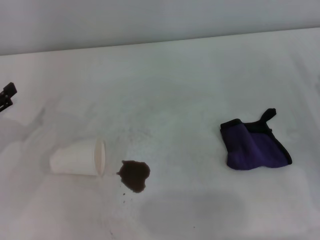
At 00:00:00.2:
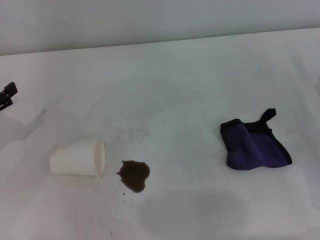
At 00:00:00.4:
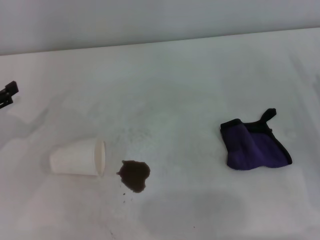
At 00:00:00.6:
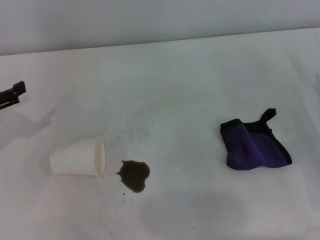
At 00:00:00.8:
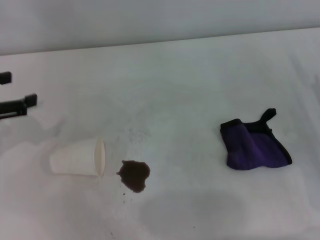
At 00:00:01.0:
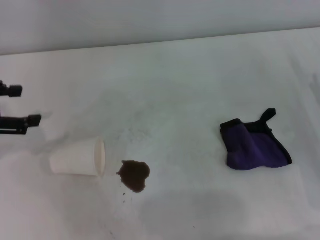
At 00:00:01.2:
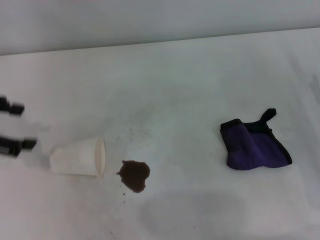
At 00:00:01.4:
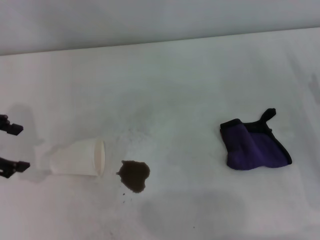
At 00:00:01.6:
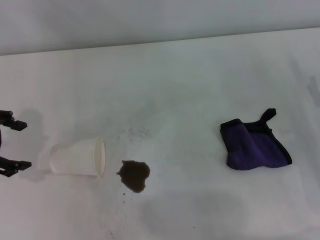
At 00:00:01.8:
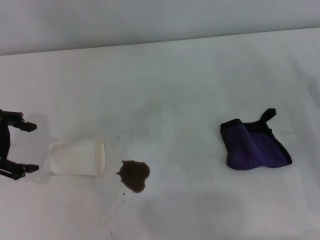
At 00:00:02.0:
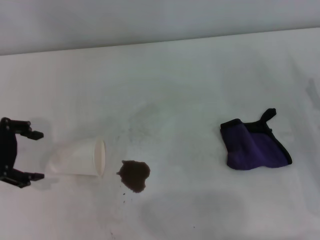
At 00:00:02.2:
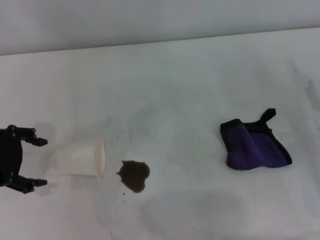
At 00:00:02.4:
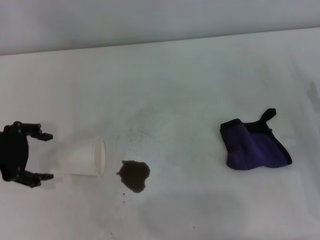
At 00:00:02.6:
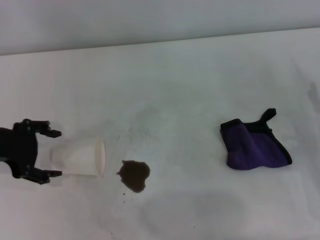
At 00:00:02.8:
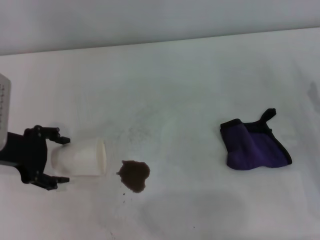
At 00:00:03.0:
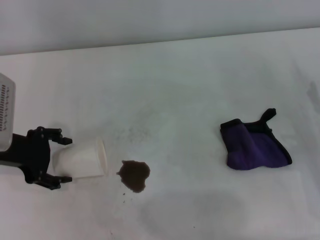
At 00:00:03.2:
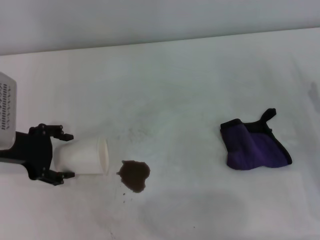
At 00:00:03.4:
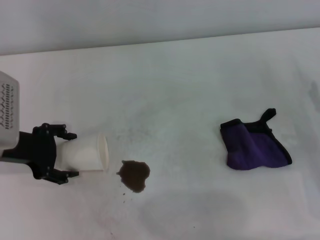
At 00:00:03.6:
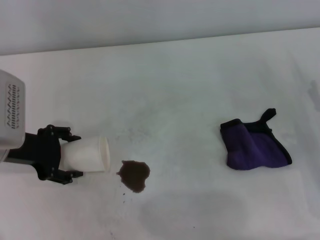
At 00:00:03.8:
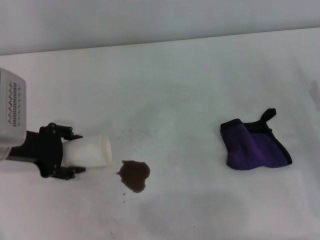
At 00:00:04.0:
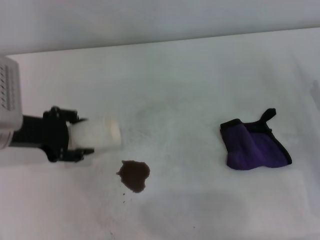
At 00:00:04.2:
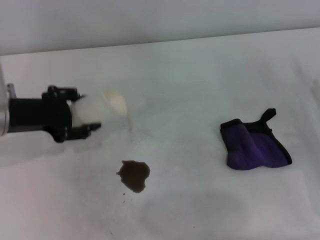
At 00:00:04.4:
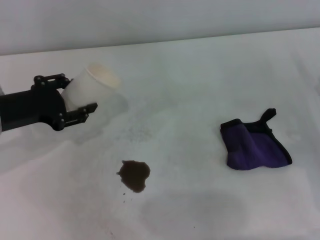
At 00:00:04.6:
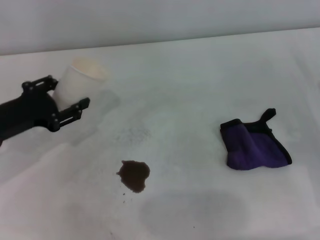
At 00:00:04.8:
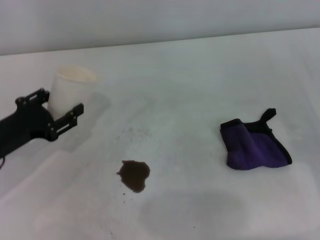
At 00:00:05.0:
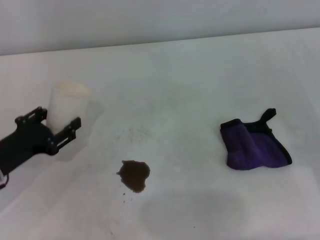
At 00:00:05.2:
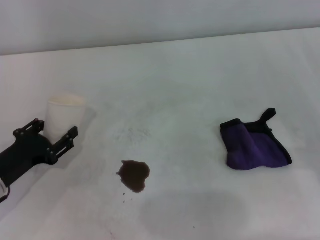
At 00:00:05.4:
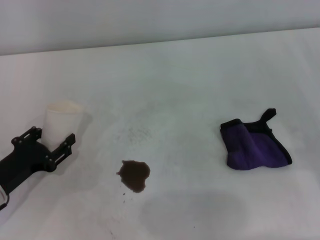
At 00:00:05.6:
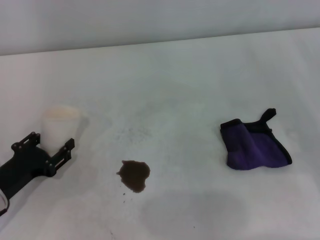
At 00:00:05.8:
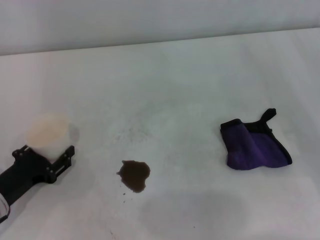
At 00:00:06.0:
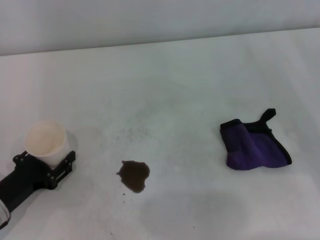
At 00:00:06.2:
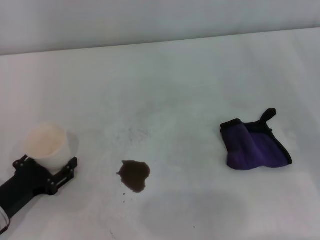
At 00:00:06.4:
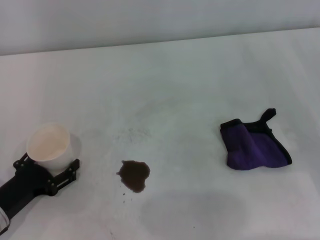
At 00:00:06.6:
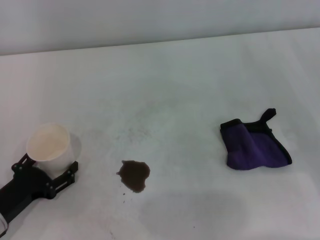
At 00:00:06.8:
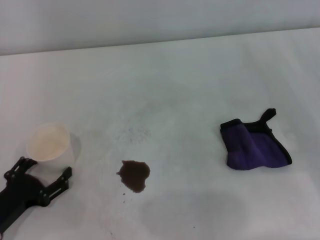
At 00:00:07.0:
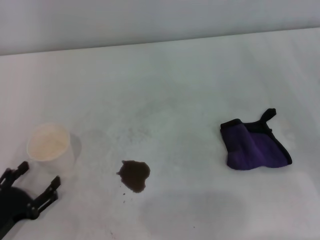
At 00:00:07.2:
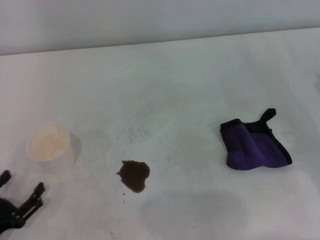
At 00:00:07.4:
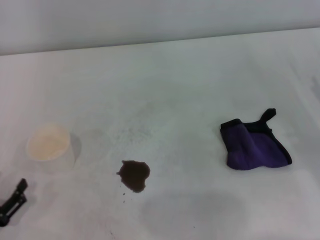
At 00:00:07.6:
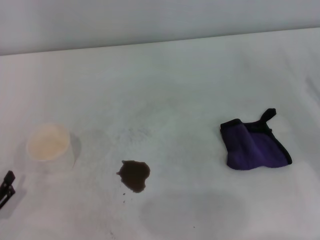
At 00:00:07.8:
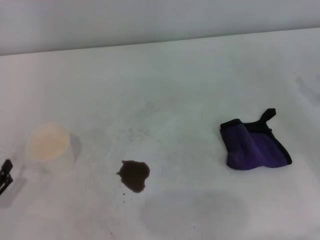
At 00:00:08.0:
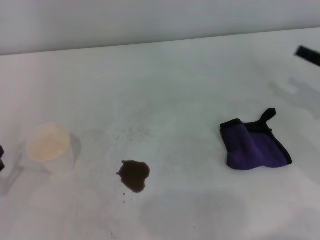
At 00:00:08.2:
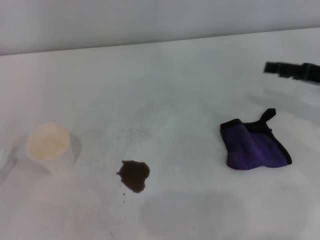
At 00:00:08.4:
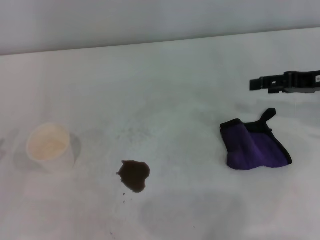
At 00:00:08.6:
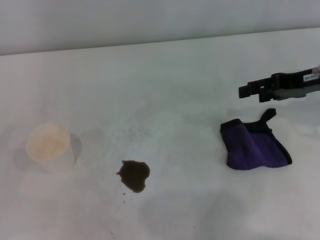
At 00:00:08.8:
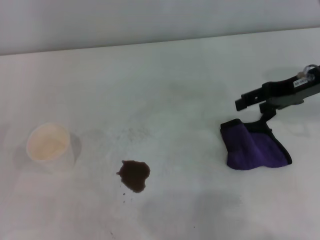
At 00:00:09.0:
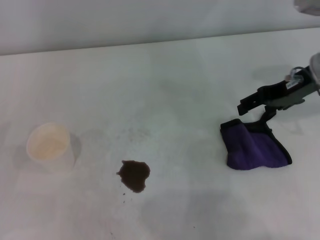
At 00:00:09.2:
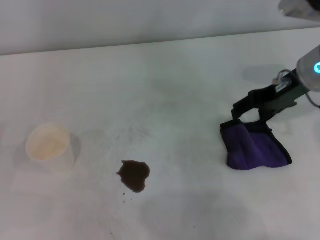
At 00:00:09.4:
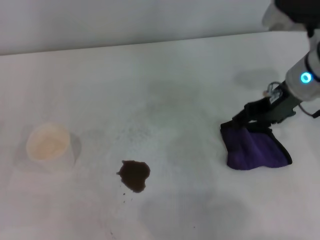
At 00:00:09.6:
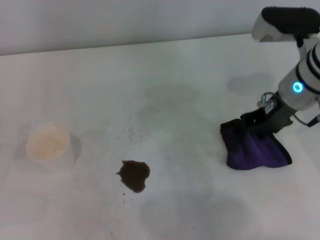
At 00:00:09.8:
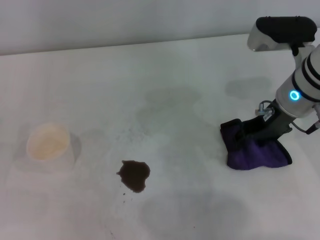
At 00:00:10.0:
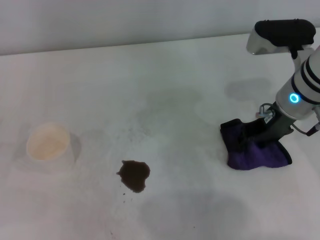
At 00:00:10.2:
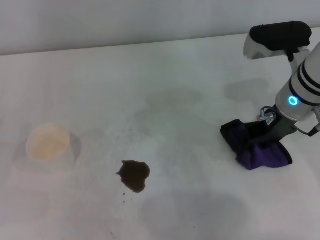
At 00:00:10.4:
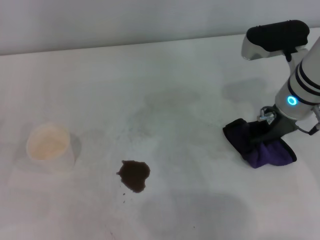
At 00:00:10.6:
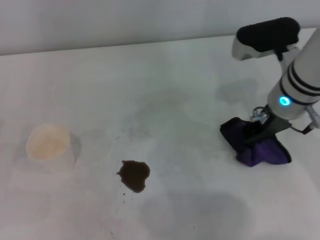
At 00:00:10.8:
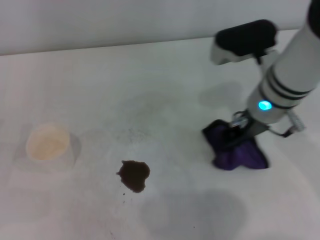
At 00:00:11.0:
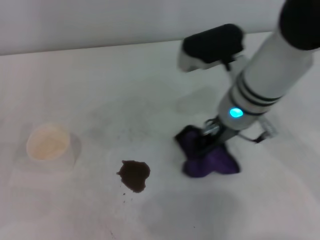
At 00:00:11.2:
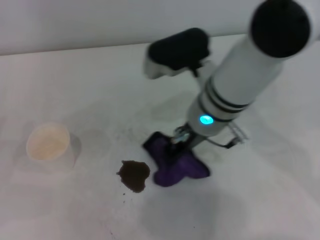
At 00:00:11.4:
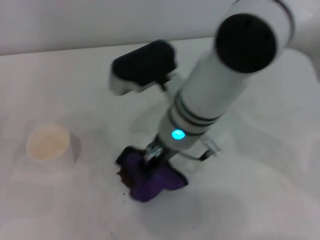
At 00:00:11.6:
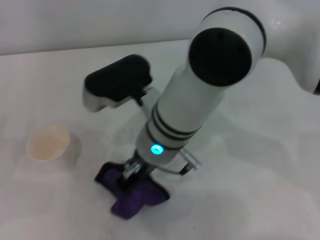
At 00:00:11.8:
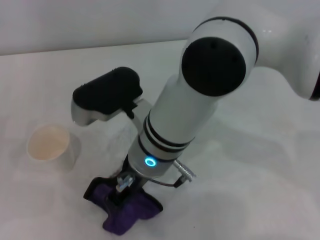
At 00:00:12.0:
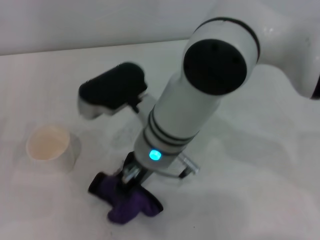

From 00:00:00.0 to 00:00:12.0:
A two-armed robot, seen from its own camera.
Step, from 00:00:00.0 to 00:00:03.6: Grasp the paper cup with the left gripper.
Step, from 00:00:03.8 to 00:00:06.6: Stand the paper cup upright with the left gripper.
Step, from 00:00:06.8 to 00:00:10.2: Grasp the rag with the right gripper.
From 00:00:00.0 to 00:00:01.6: The left gripper heads upward, covering some 10 cm.
From 00:00:01.6 to 00:00:03.0: The left gripper heads downward, covering roughly 5 cm.
From 00:00:03.0 to 00:00:04.4: The left gripper closes its fingers.
From 00:00:04.4 to 00:00:06.0: The left gripper shifts about 15 cm downward and backward.
From 00:00:06.0 to 00:00:07.6: The left gripper shifts approximately 10 cm backward, and opens.
From 00:00:07.6 to 00:00:09.0: The left gripper heads forward, covering approximately 5 cm; the right gripper goes roughly 20 cm to the left, upward and forward.
From 00:00:09.0 to 00:00:10.4: The right gripper moves to the left, roughly 5 cm, and closes its fingers.
From 00:00:10.4 to 00:00:12.0: The right gripper travels to the left by approximately 20 cm, and closes.

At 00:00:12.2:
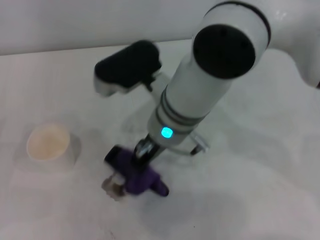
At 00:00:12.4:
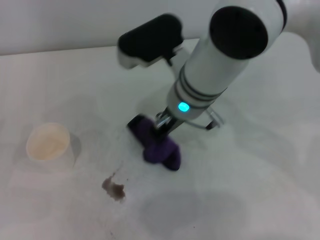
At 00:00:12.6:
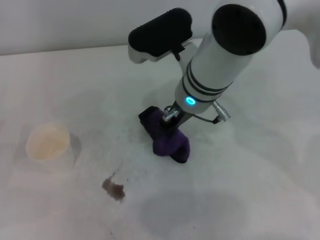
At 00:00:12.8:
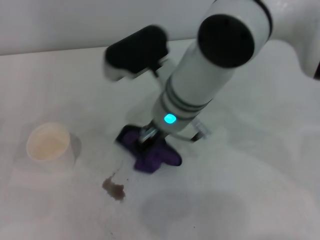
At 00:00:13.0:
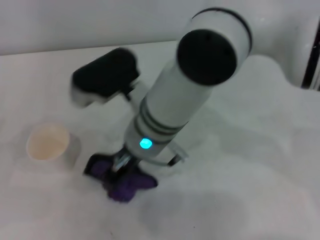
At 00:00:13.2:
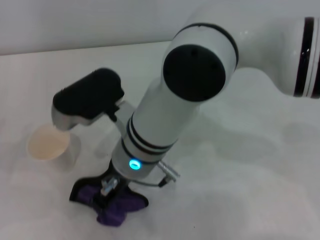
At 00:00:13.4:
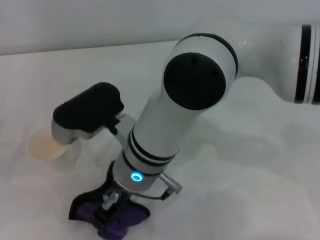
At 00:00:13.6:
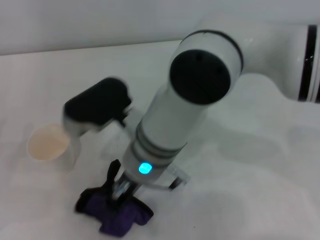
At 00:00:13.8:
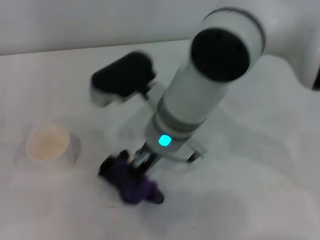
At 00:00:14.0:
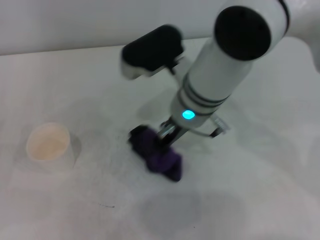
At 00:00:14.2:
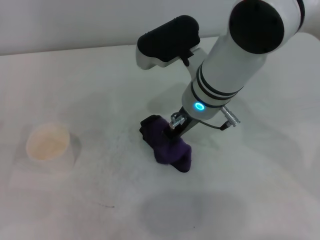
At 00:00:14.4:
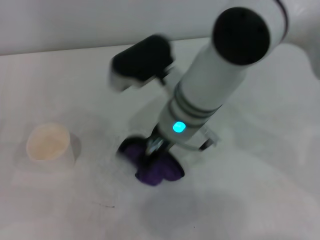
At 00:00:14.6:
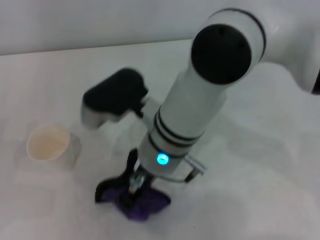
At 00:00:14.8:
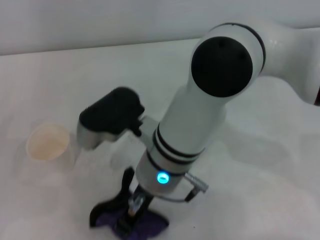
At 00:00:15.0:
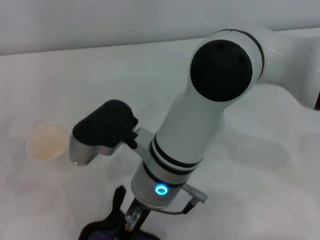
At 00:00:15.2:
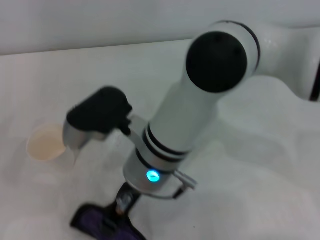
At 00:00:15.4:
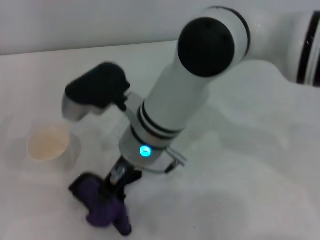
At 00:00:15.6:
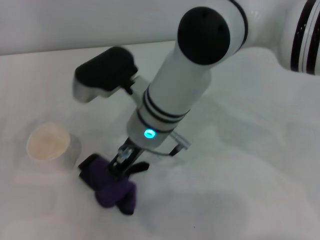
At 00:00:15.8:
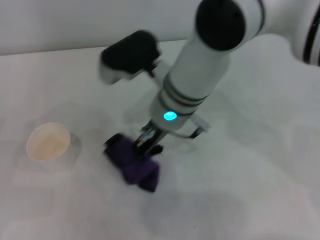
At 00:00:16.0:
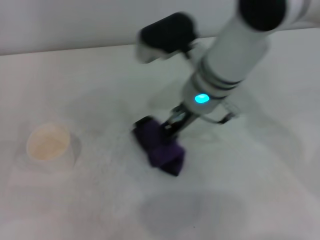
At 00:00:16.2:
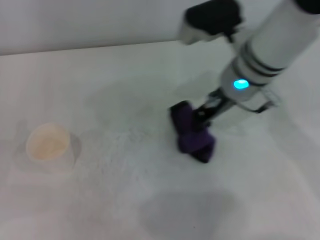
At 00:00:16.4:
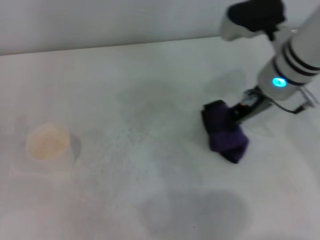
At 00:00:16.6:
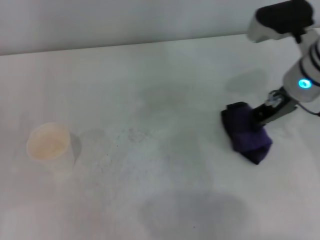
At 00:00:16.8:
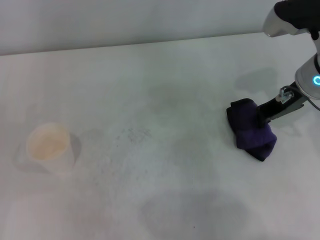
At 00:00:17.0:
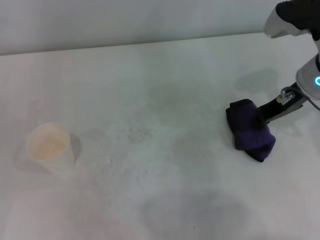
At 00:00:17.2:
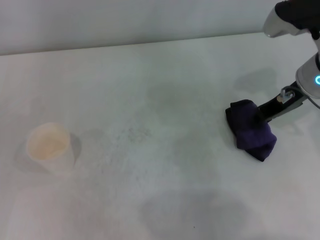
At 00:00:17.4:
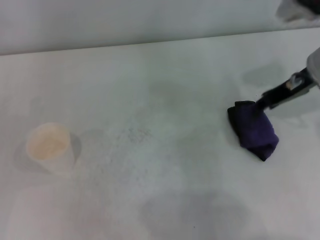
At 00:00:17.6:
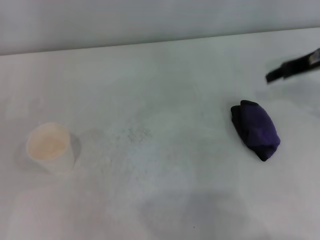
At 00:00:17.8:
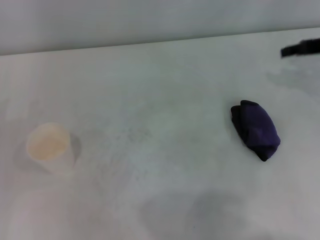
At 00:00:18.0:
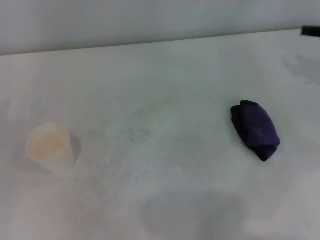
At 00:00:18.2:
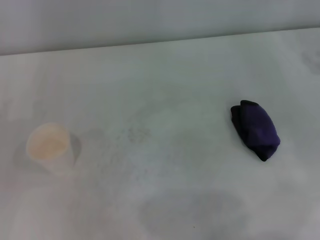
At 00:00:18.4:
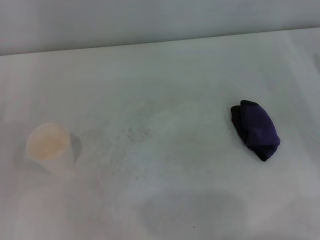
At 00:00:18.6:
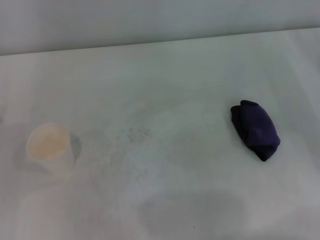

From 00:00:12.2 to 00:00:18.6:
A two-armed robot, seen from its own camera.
Step, from 00:00:12.2 to 00:00:16.2: Wipe the stains off the table with the right gripper.
Step, from 00:00:16.4 to 00:00:17.0: Place the rag on the table with the right gripper.
From 00:00:12.2 to 00:00:13.8: The right gripper swings left and right, roughly 10 cm each way, with 2 reversals.
From 00:00:13.8 to 00:00:15.4: The right gripper moves forward and backward over roughly 10 cm, changing direction 2 times.
From 00:00:15.4 to 00:00:17.0: The right gripper travels to the right by some 25 cm.
From 00:00:17.0 to 00:00:18.6: The right gripper moves to the right and downward, approximately 20 cm, and opens.
